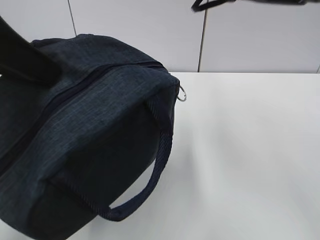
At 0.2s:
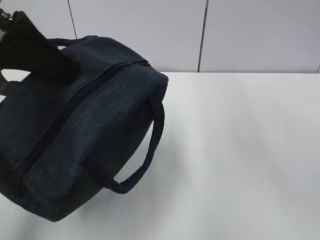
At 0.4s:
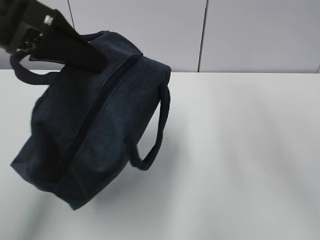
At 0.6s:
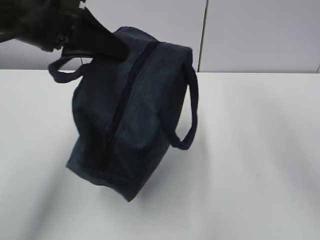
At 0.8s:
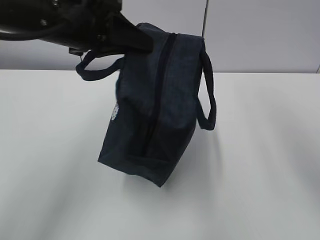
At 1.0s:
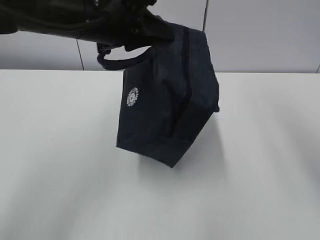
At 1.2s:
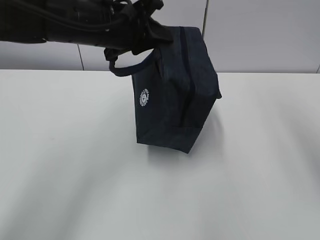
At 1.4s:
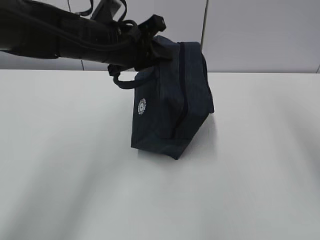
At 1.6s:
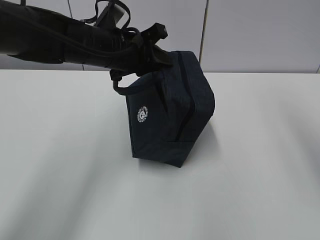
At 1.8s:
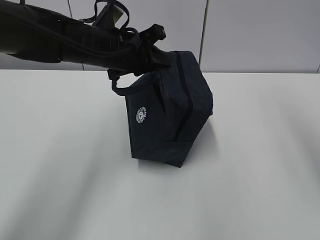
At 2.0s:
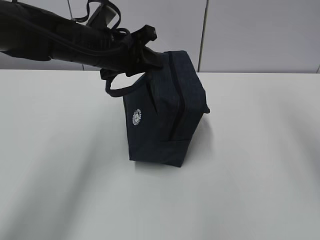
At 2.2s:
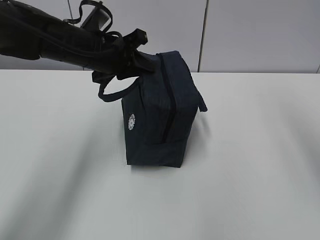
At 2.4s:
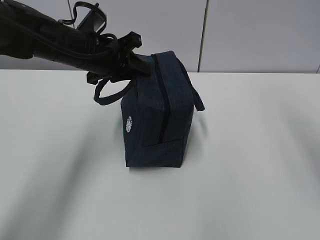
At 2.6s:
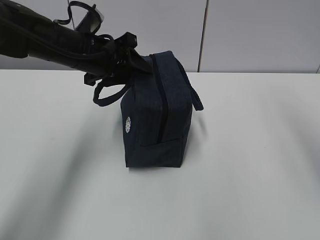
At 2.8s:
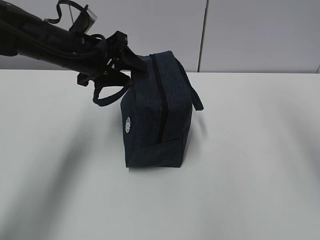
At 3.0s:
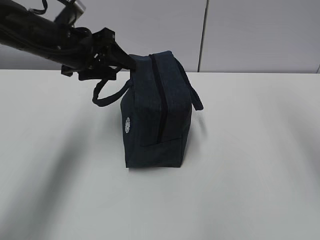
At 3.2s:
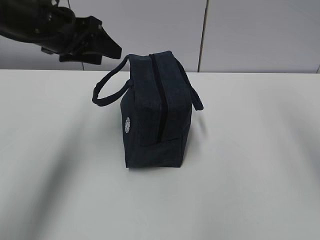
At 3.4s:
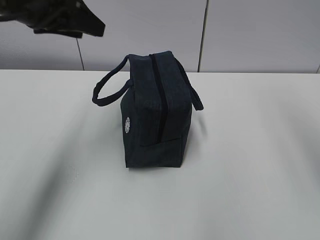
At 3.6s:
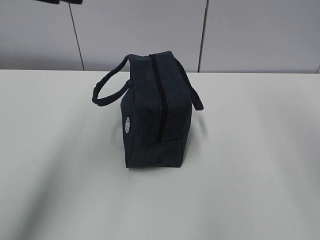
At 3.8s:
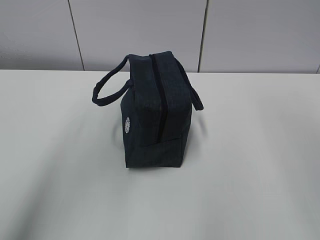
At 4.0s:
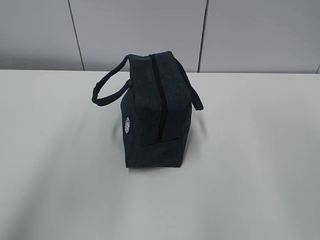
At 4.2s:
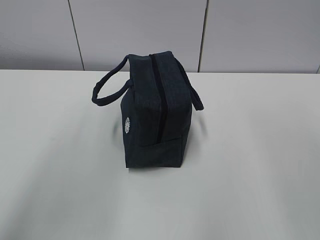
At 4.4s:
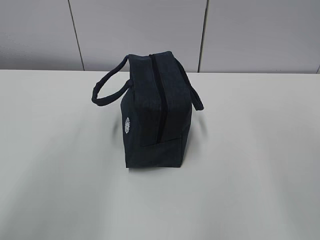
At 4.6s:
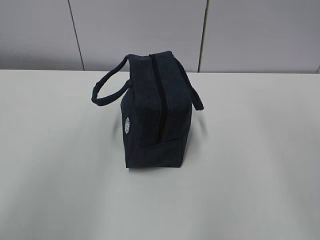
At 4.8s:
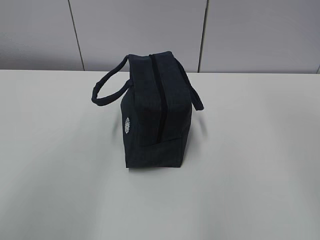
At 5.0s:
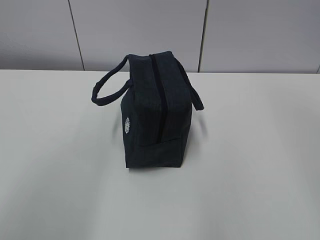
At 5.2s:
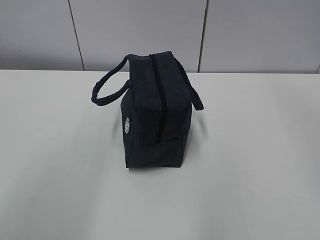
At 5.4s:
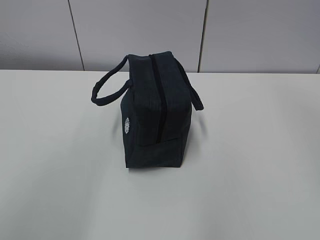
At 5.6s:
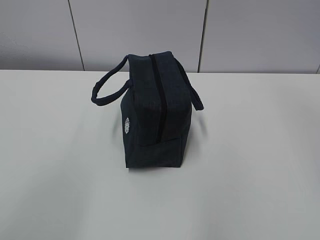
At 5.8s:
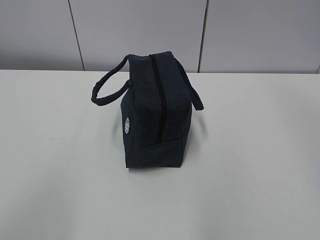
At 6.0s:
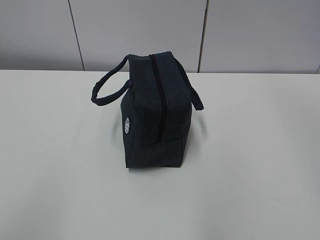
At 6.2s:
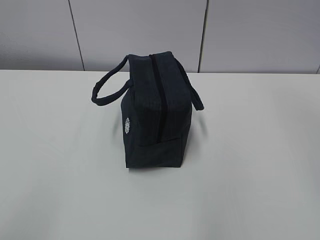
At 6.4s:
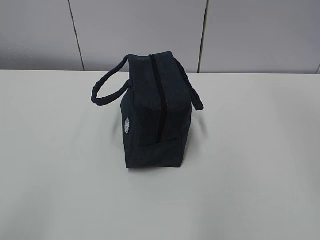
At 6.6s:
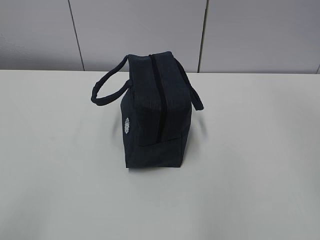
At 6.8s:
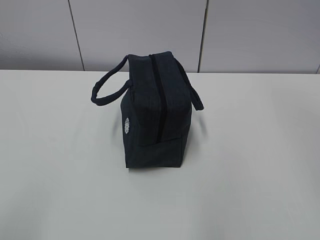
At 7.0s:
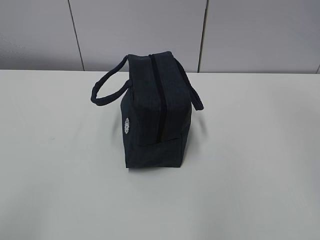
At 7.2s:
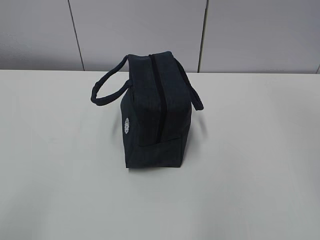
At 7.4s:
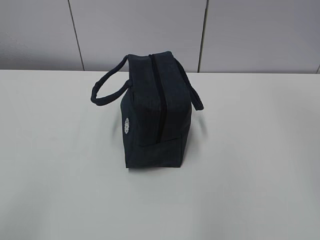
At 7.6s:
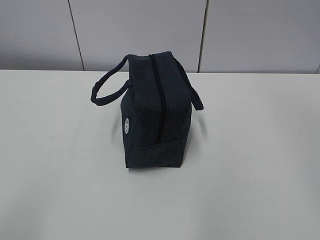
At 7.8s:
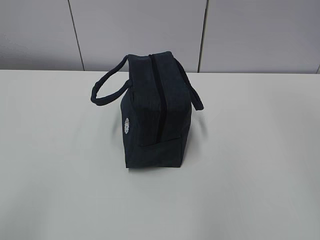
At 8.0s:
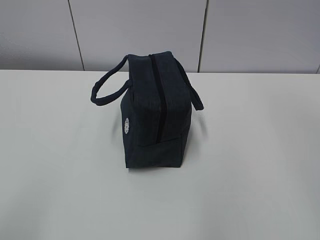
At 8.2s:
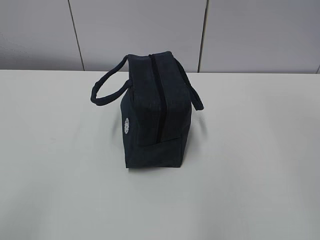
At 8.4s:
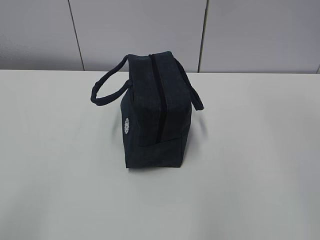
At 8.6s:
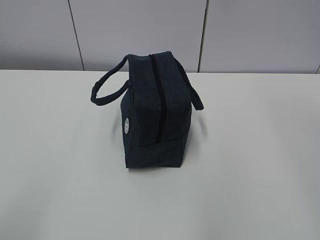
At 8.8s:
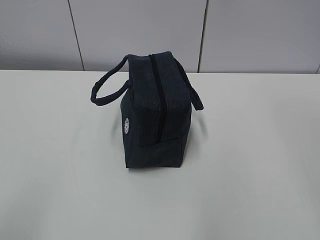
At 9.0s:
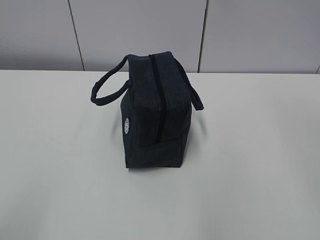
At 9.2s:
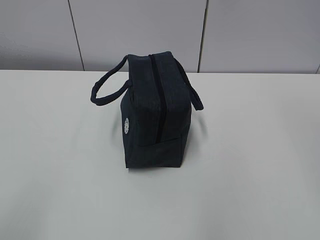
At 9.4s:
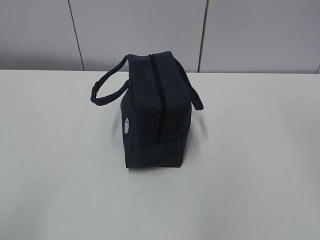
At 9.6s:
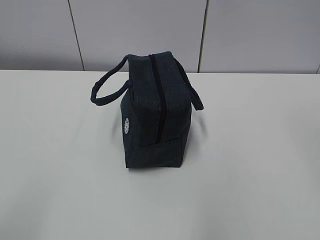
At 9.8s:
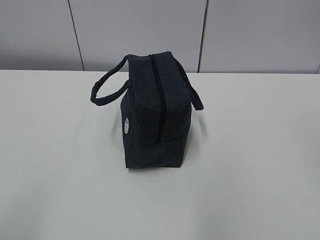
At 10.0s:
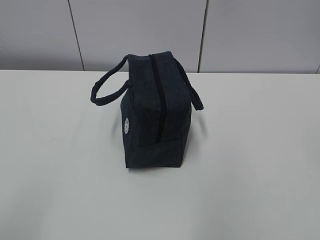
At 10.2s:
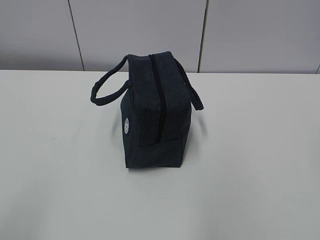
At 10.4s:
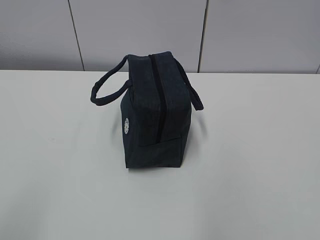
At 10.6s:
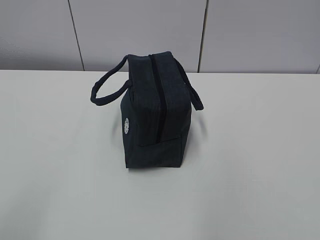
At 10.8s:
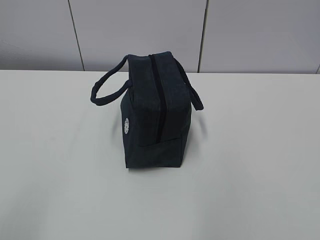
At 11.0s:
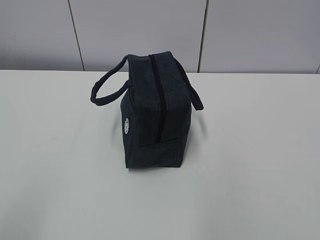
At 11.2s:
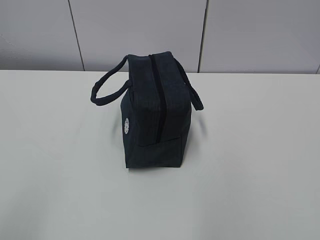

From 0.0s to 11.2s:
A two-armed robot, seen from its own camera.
From 0.0s to 1.6s: The right gripper heads backward and to the right, covering roughly 20 cm, while the left gripper is displaced forward, downward and to the right by about 25 cm.
From 1.6s to 3.2s: The left gripper goes roughly 10 cm to the left and upward, and opens.
From 3.2s to 4.8s: The right gripper heads backward and upward, covering roughly 10 cm, while the left gripper shifts approximately 30 cm backward and upward.
From 4.8s to 6.4s: The left gripper moves backward and downward, about 15 cm.

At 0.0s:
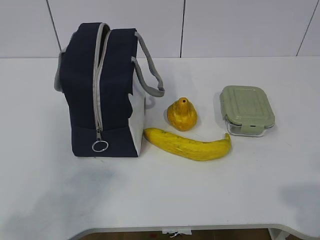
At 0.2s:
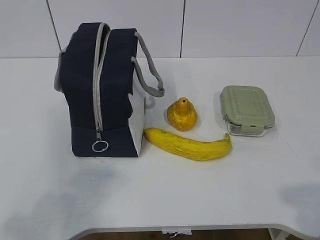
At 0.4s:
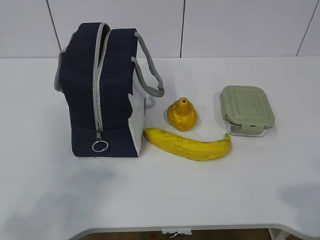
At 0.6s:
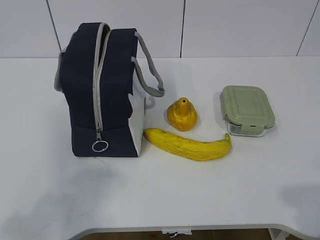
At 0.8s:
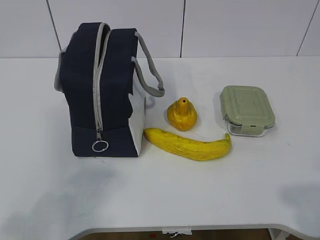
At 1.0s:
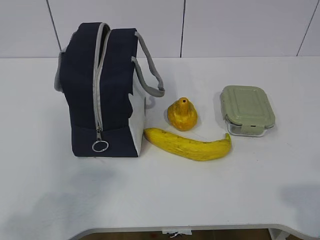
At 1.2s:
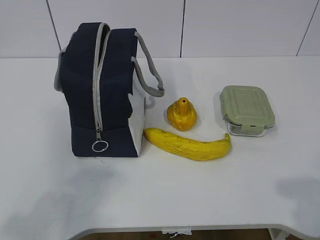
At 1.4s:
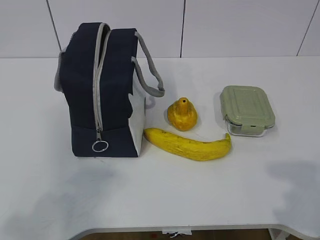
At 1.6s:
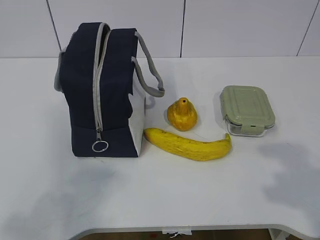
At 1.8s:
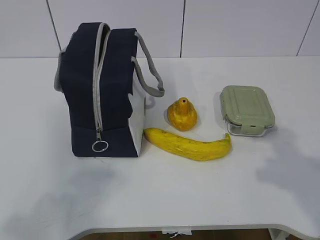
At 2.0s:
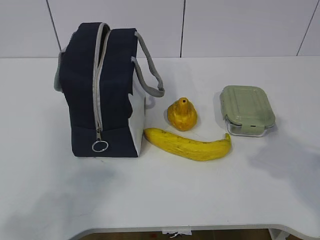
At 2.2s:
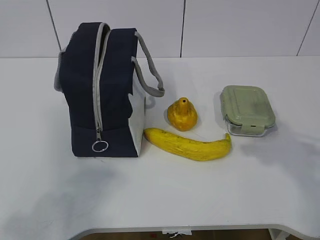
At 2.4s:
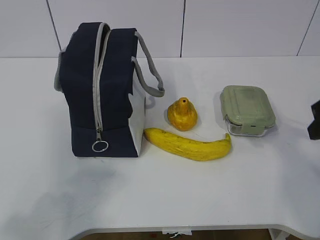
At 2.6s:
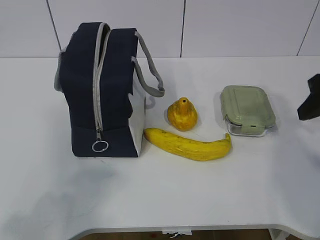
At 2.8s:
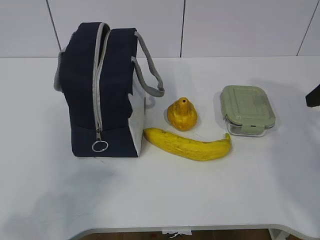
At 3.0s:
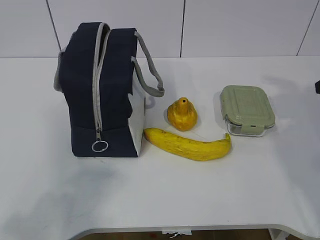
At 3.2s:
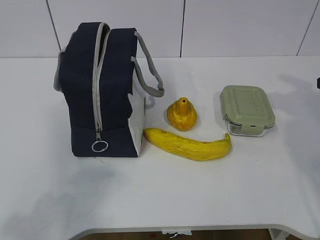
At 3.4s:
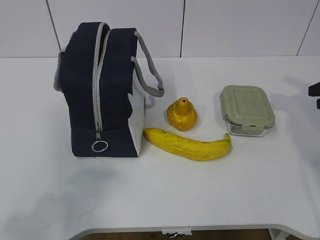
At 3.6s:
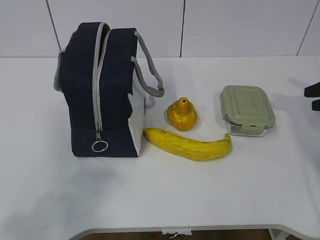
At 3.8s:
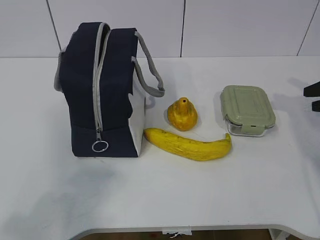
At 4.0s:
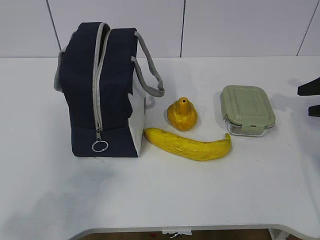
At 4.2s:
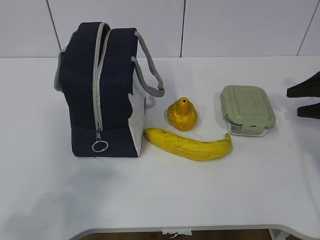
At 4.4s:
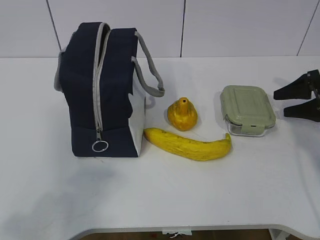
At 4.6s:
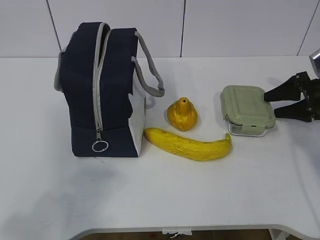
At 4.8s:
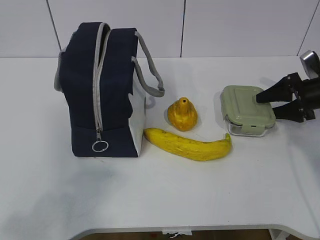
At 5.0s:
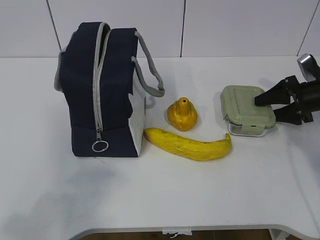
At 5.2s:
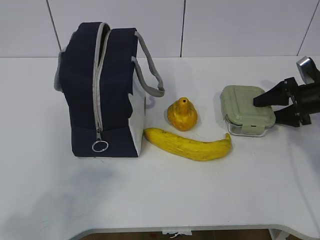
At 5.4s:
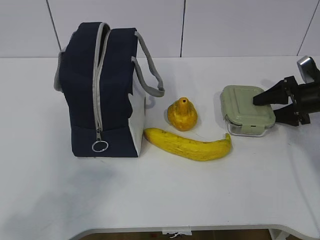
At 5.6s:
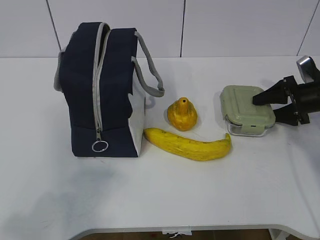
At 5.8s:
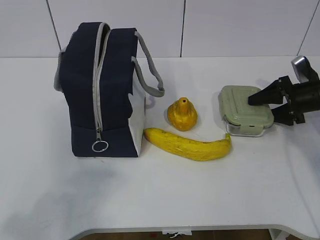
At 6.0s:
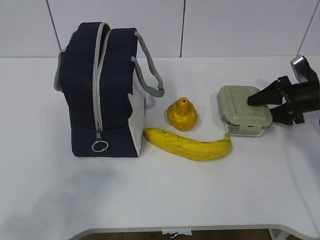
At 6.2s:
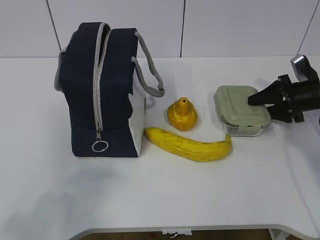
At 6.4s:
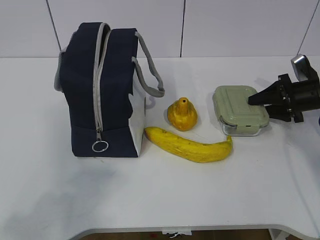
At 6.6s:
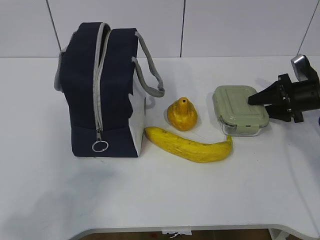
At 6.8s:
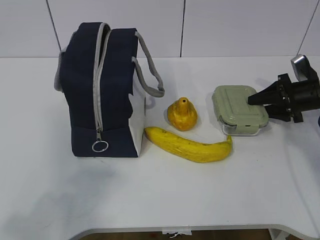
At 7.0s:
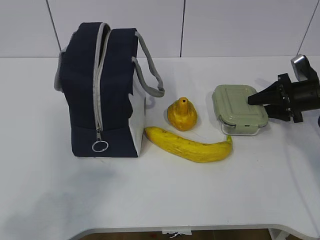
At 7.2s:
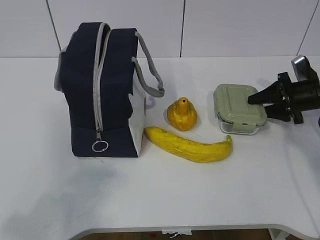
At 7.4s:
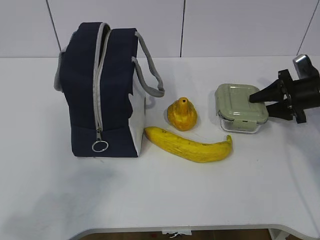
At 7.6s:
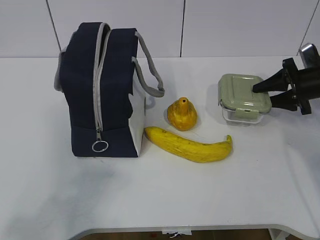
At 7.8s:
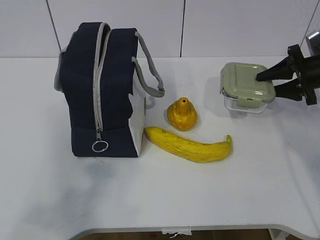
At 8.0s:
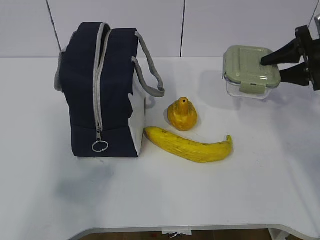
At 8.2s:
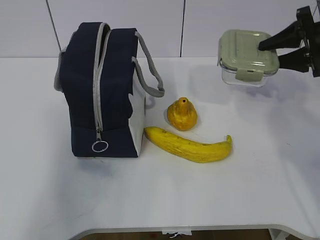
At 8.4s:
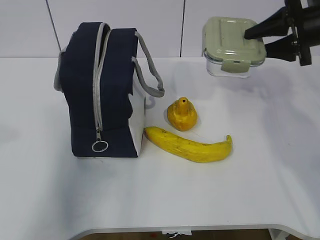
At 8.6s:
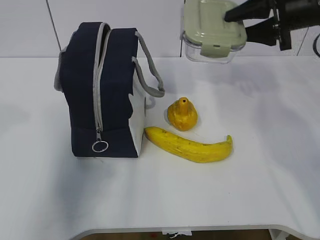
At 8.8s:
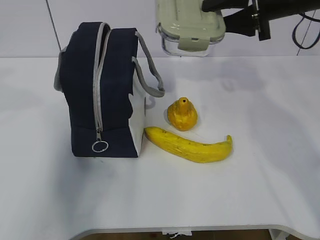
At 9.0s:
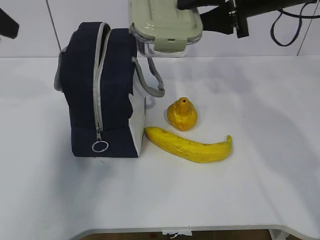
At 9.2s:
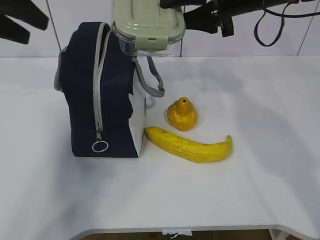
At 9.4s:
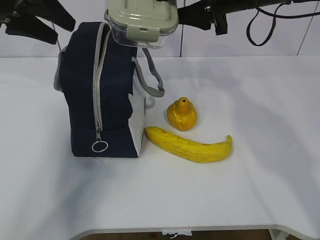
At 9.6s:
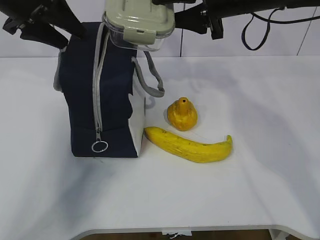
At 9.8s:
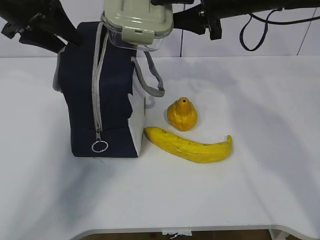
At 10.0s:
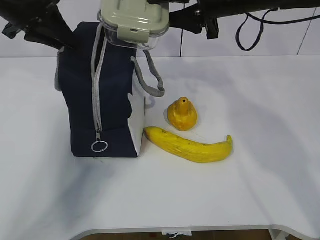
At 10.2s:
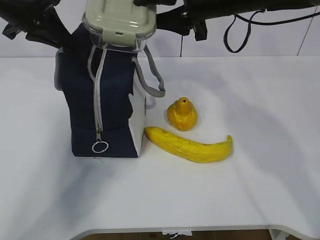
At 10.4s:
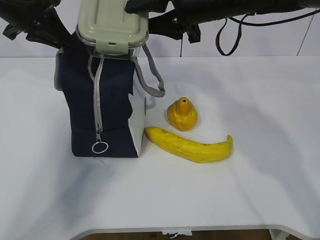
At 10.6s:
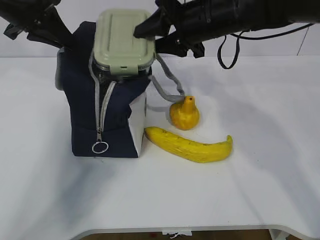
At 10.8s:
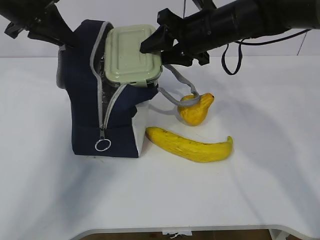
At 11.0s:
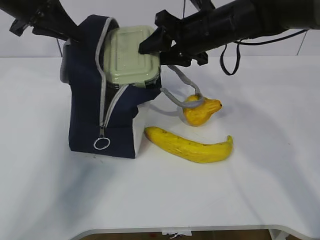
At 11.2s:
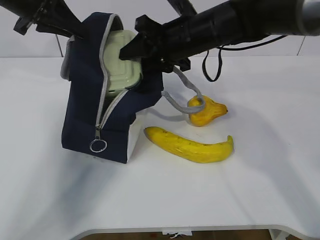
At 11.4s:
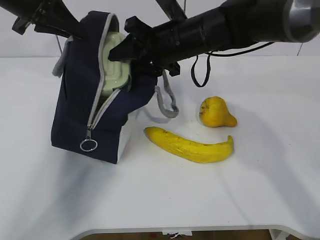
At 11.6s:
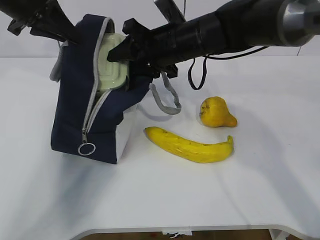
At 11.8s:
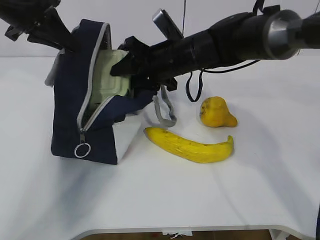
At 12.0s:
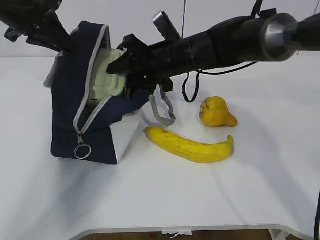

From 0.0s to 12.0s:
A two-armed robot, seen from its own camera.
Step, from 0.0s to 6.4s: Grasp the box with the right gripper.
From 1.6s to 3.0s: The right gripper moves forward, roughly 25 cm.
From 3.0s to 4.4s: The right gripper goes roughly 15 cm downward and forward.
From 4.4s to 6.0s: The right gripper ends up about 5 cm from where it was.
From 6.0s to 7.6s: There are only small adjustments of the grippers.
From 7.6s to 9.0s: The left gripper shifts roughly 30 cm forward, and opens up. The right gripper travels upward and to the left by roughly 25 cm.
From 9.0s to 10.4s: The right gripper shifts roughly 10 cm to the left; the left gripper goes approximately 15 cm forward and downward, and closes.
From 10.4s to 12.0s: The right gripper is displaced downward and to the left by some 10 cm.
